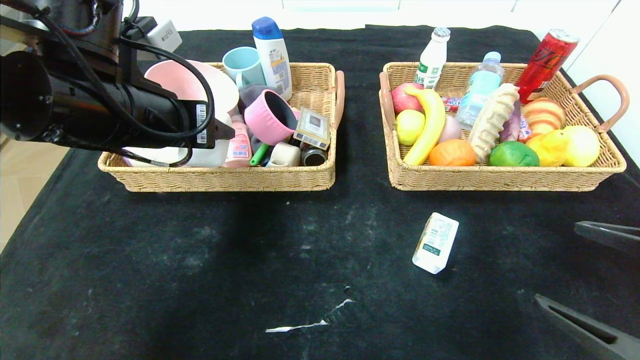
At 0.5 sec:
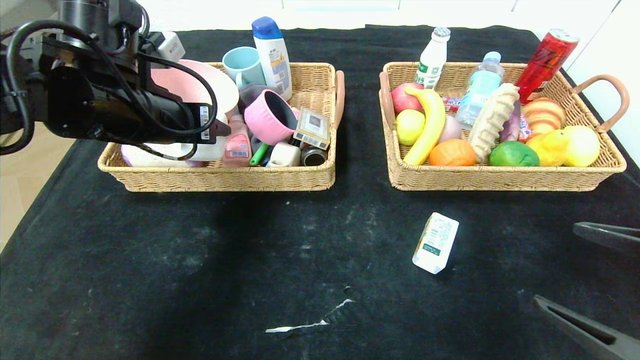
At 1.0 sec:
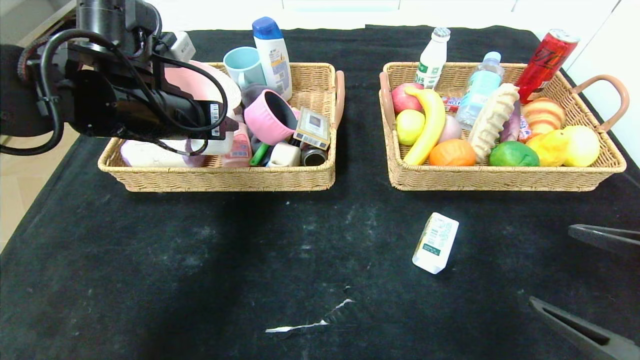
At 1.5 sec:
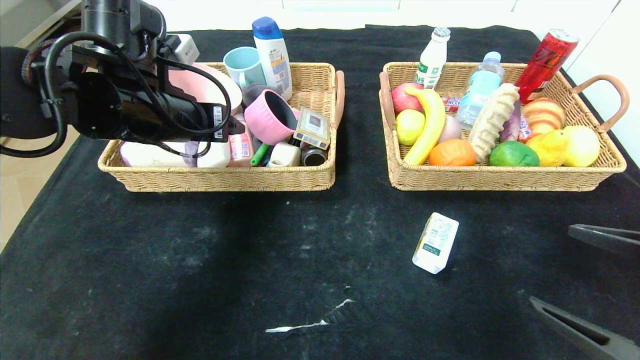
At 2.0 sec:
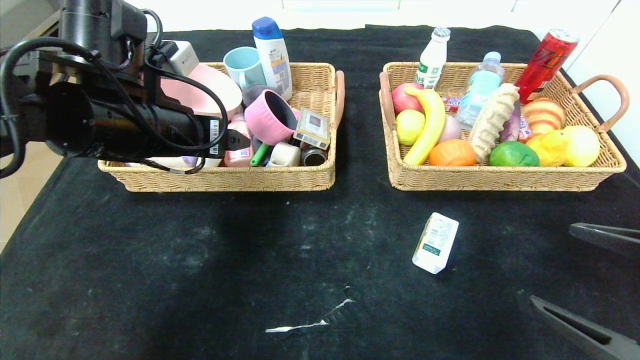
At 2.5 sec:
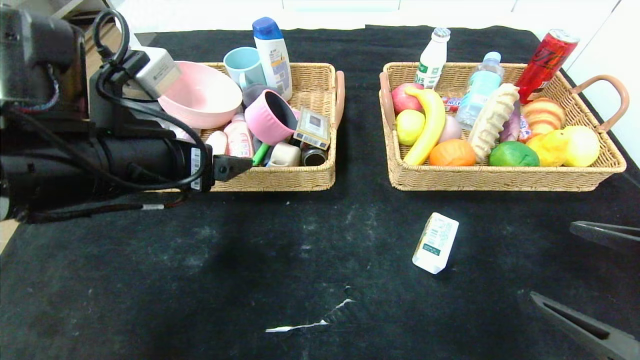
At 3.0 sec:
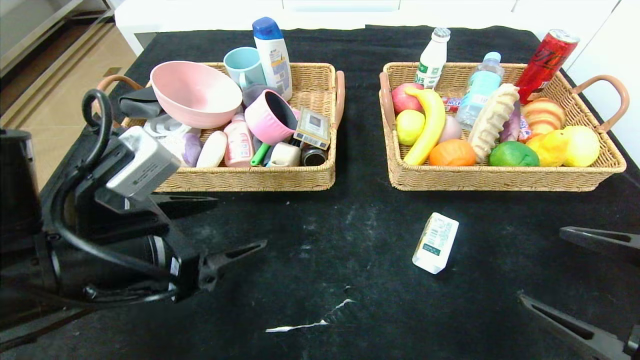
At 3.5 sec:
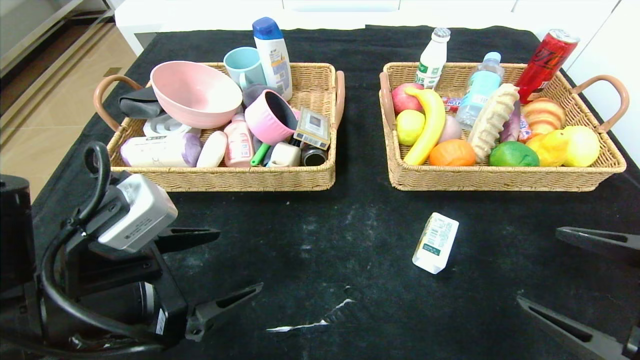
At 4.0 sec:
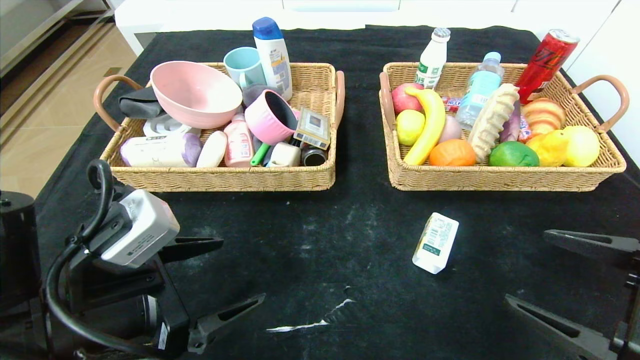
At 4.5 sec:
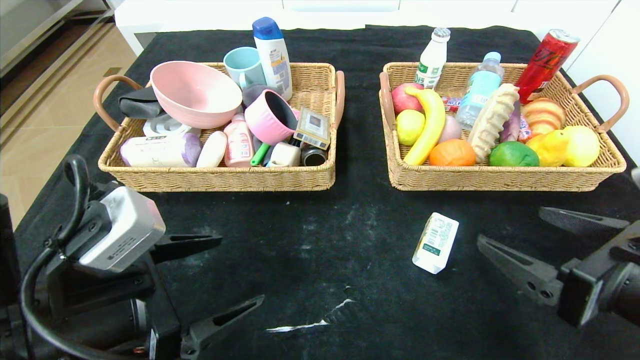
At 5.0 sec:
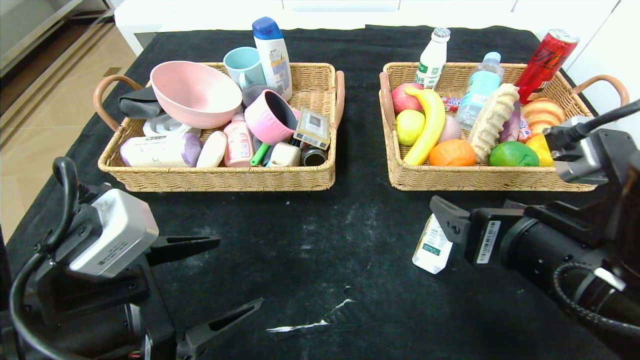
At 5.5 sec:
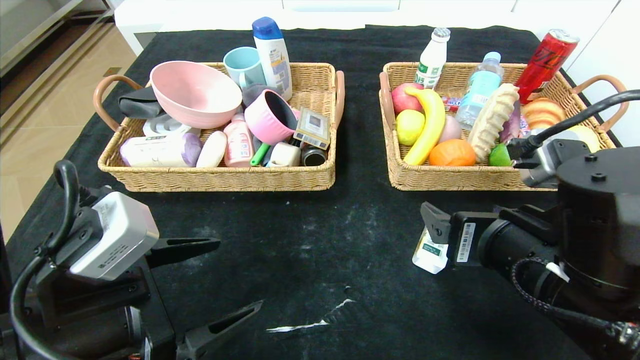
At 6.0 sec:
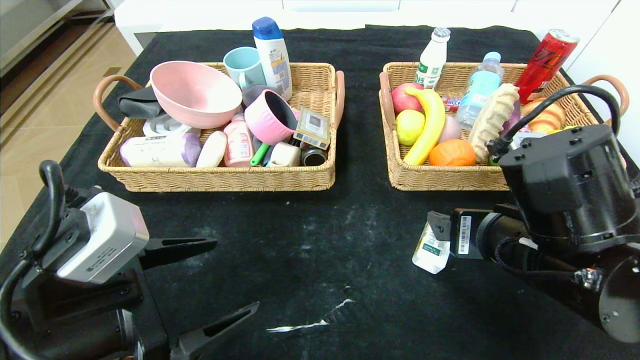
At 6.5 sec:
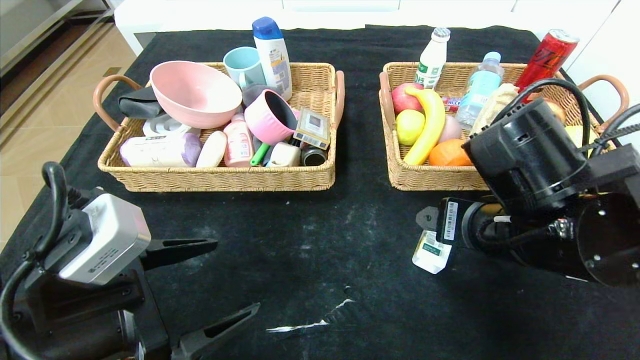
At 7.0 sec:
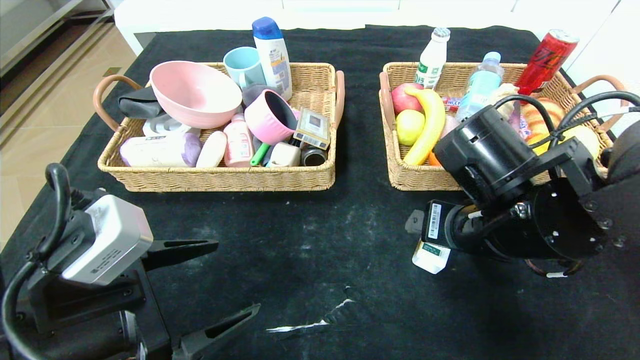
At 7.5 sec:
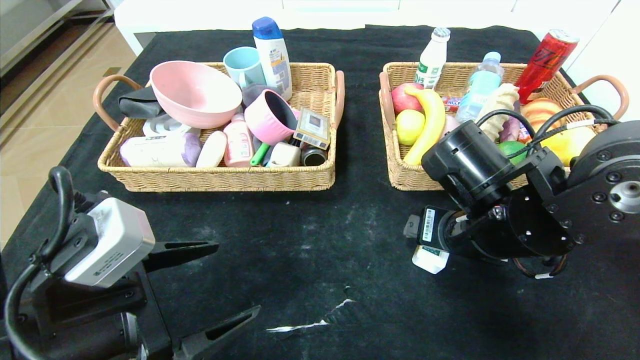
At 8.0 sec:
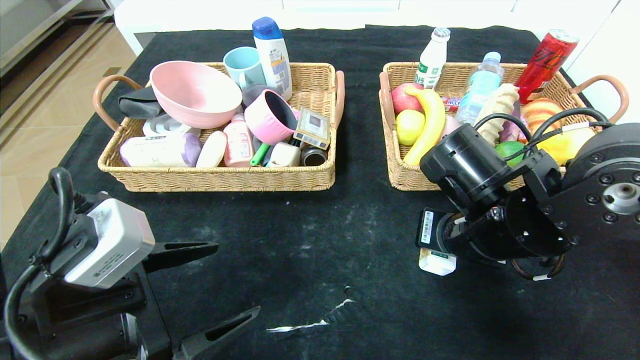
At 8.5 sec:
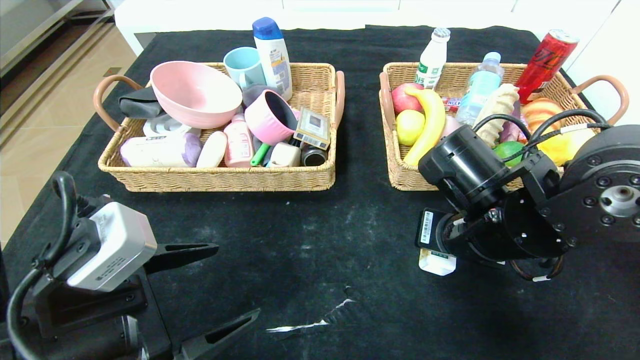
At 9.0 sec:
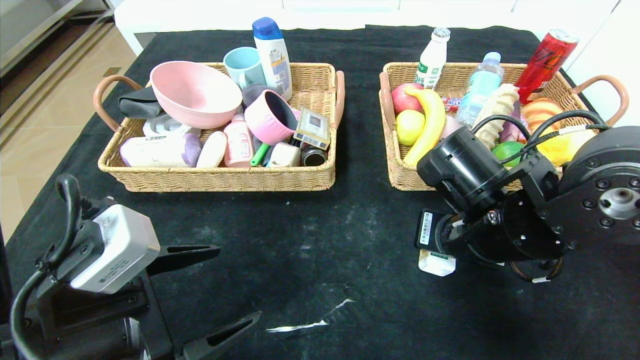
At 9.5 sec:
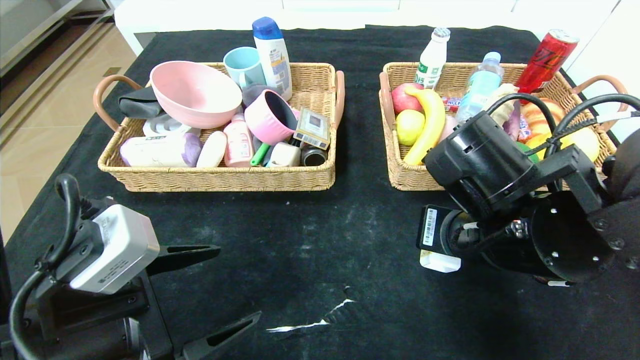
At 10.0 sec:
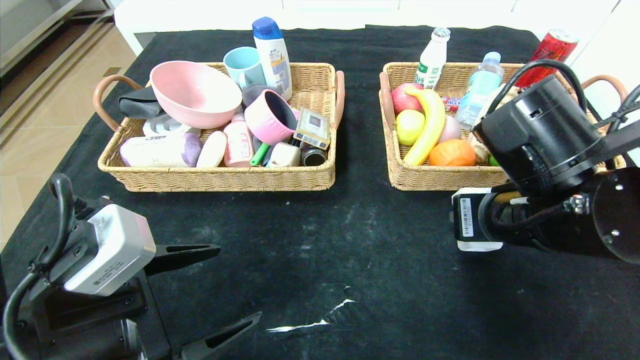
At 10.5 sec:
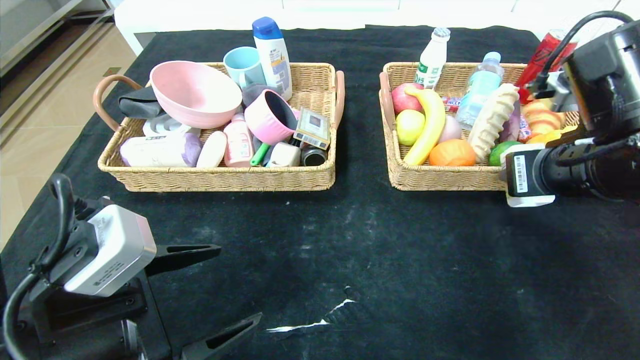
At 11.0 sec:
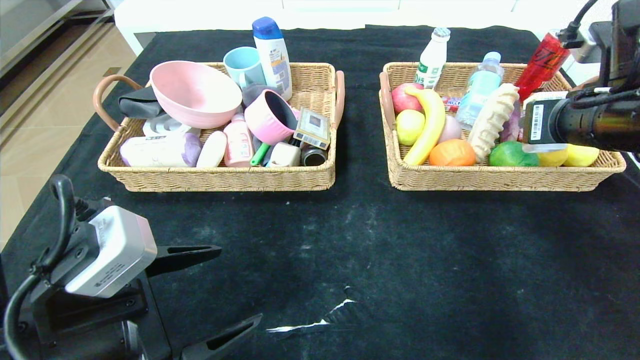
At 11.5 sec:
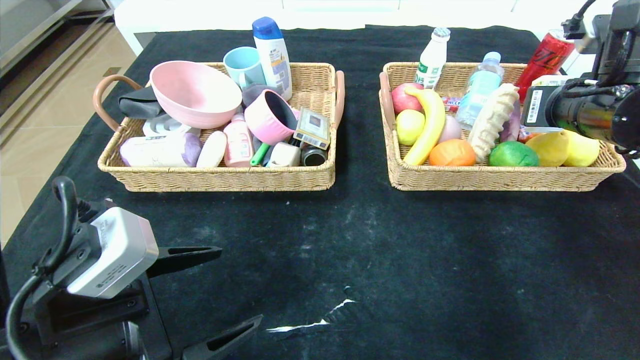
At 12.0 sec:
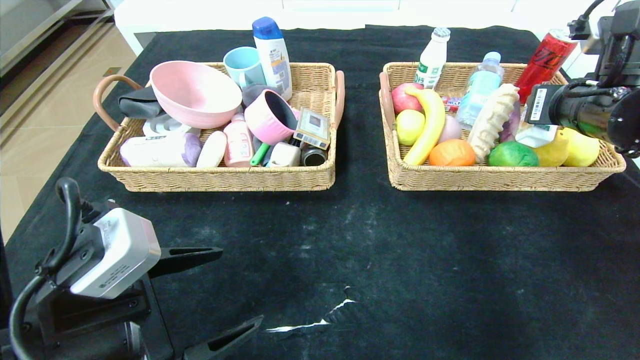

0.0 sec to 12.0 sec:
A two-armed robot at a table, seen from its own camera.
0.0 sec to 2.0 sec: The left gripper opens up.
2.0 sec to 4.0 sec: The left gripper heads backward and downward, covering some 15 cm.
4.0 sec to 6.0 sec: The right gripper shifts roughly 15 cm to the left and forward.
6.0 sec to 8.0 sec: The right gripper goes some 5 cm forward, and closes up.
8.0 sec to 10.0 sec: The right gripper moves about 5 cm.
10.0 sec to 12.0 sec: The right gripper is displaced to the right, forward and upward by about 15 cm.

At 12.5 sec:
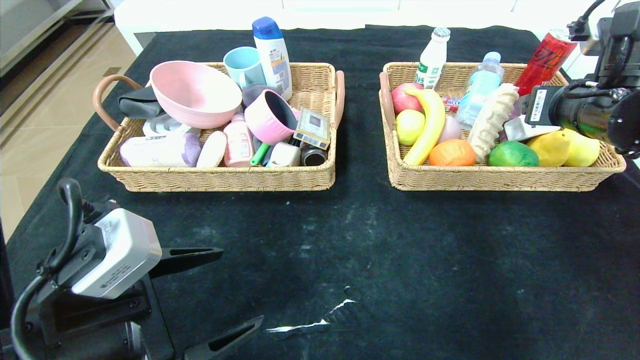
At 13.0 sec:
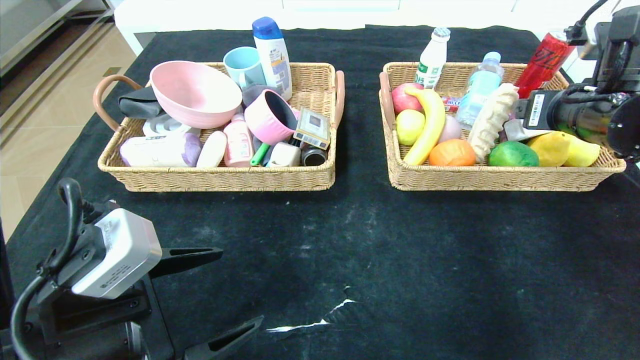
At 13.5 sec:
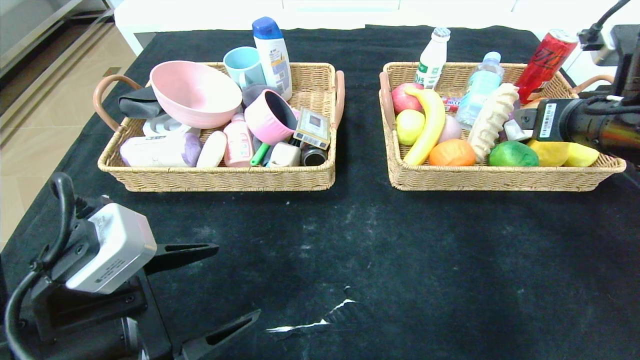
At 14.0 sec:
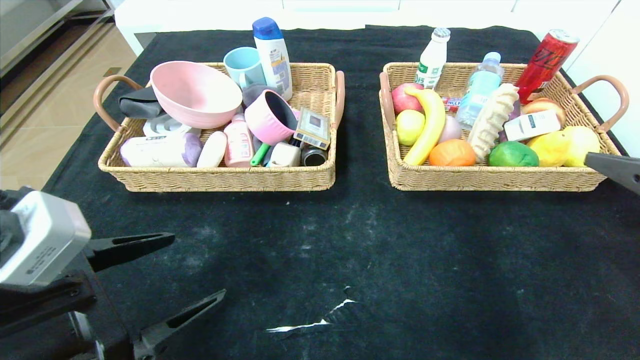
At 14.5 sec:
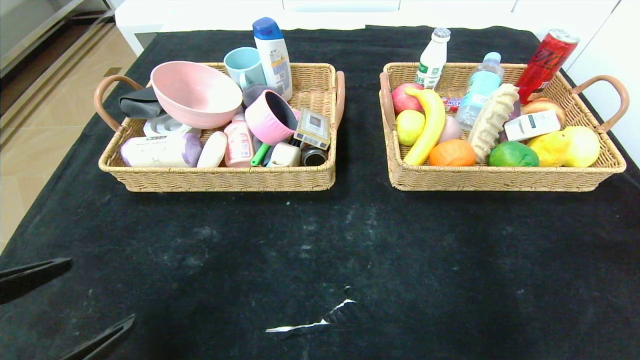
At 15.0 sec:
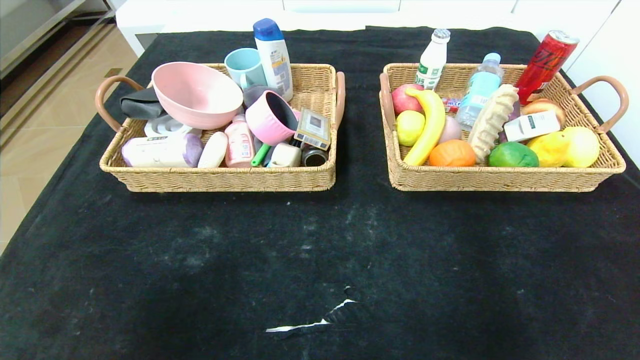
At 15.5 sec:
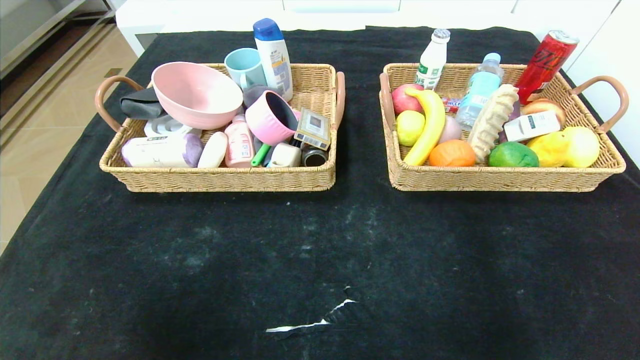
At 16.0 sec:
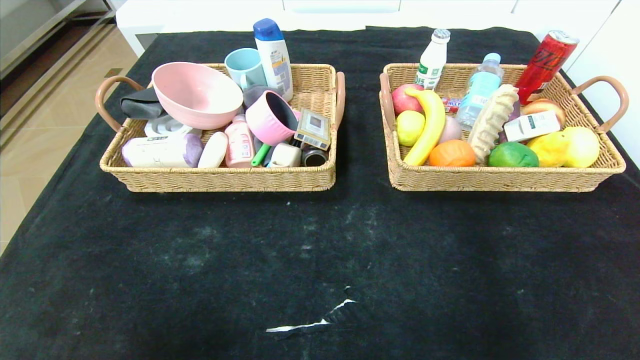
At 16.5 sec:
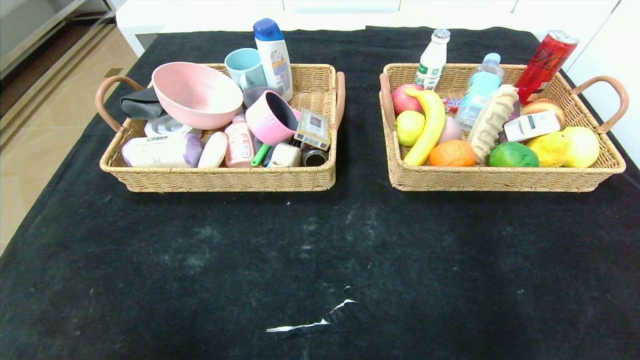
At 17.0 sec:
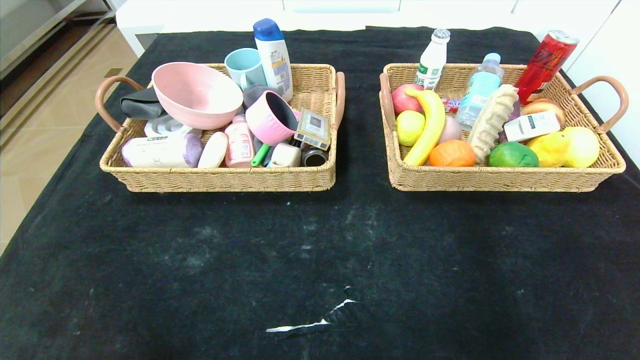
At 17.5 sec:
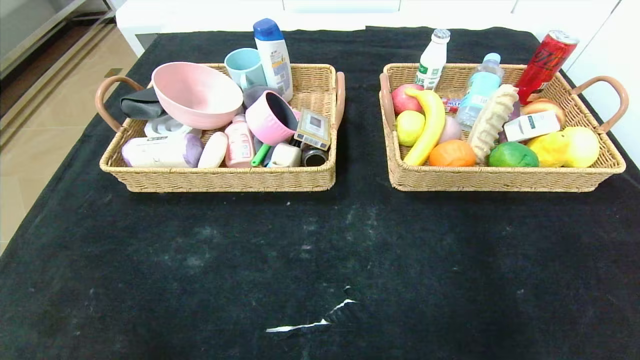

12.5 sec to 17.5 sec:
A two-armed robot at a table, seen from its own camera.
12.5 sec to 15.0 sec: The right gripper heads backward, covering some 40 cm, while the left gripper moves backward and to the left, some 20 cm.
